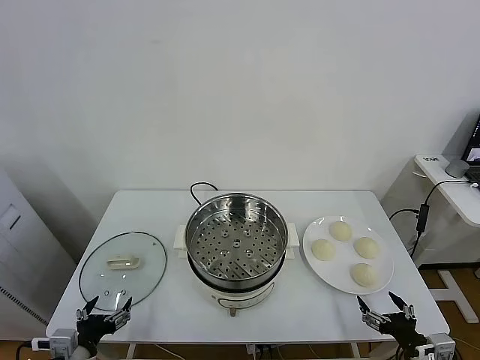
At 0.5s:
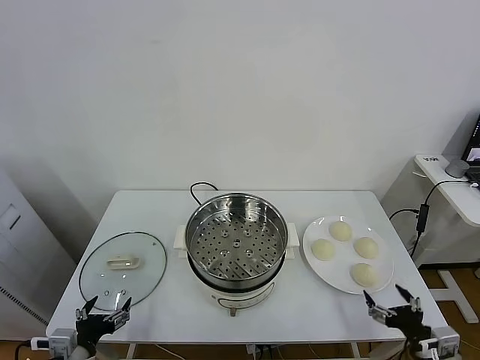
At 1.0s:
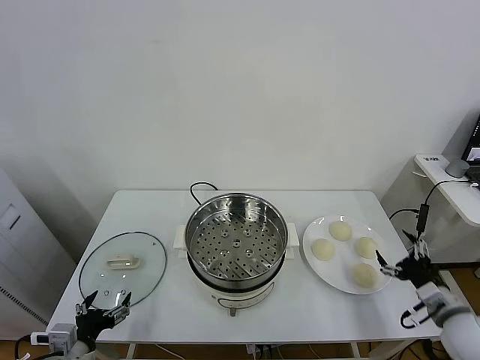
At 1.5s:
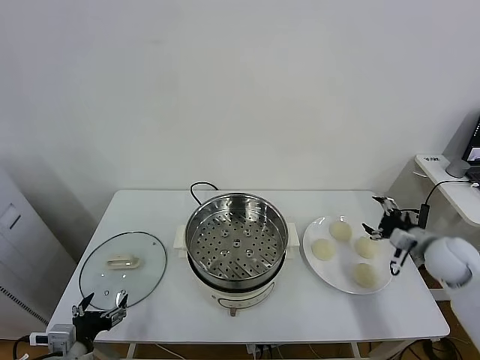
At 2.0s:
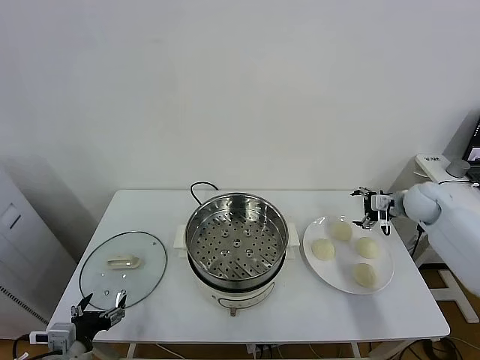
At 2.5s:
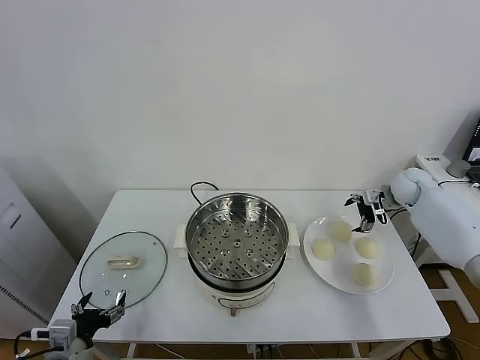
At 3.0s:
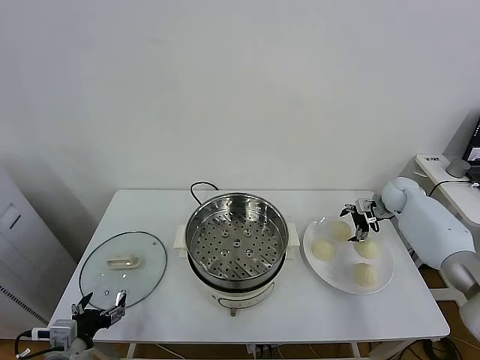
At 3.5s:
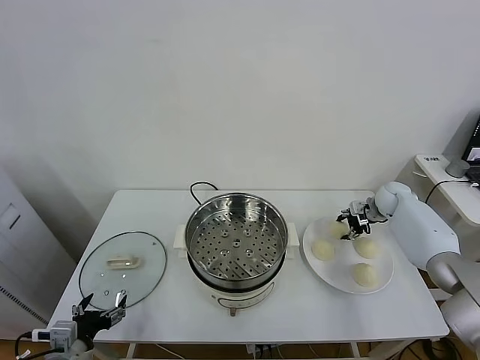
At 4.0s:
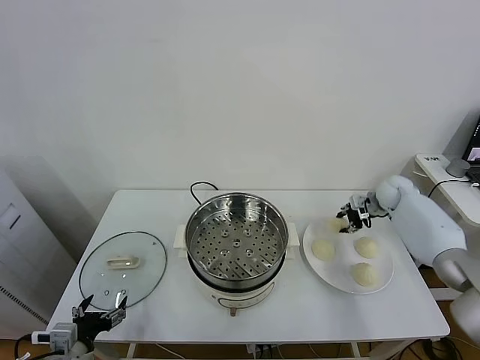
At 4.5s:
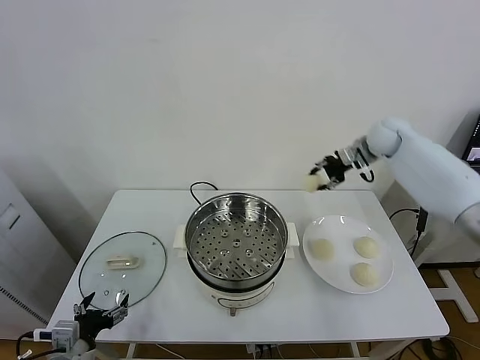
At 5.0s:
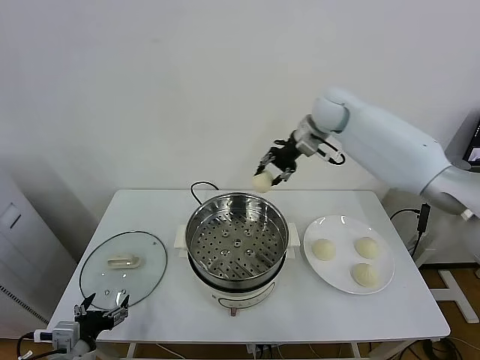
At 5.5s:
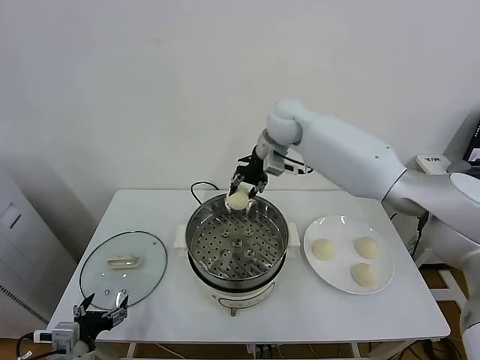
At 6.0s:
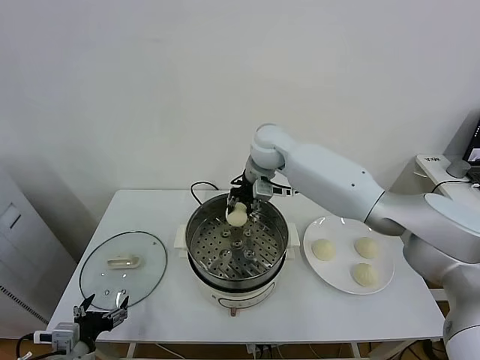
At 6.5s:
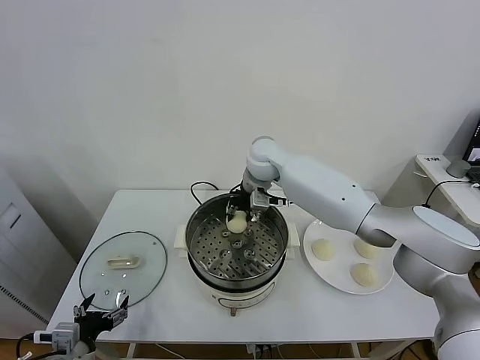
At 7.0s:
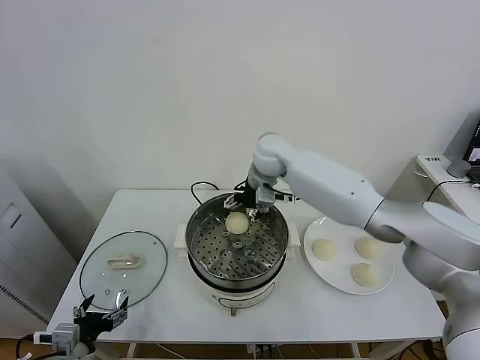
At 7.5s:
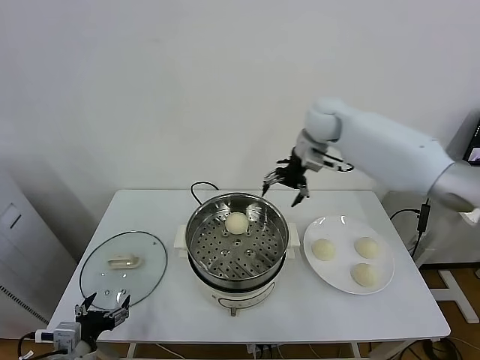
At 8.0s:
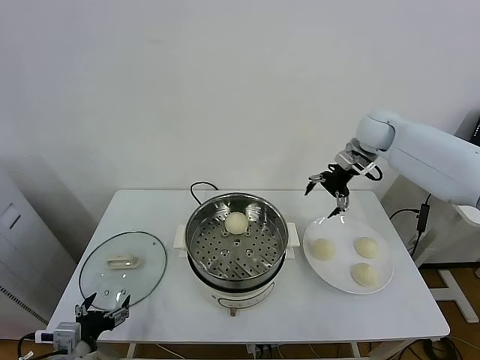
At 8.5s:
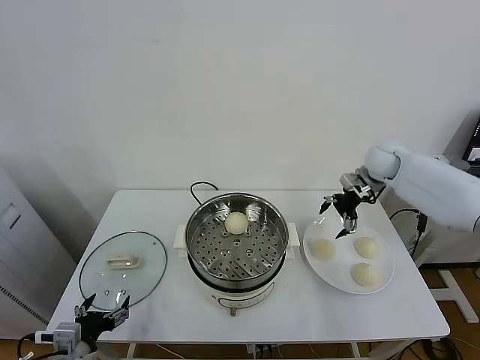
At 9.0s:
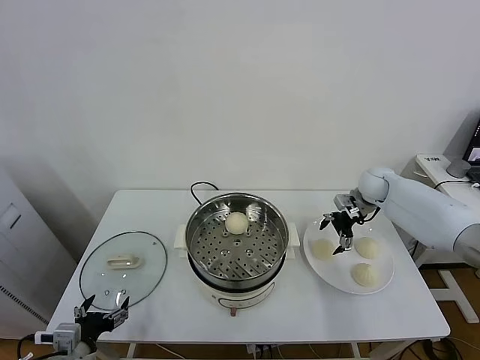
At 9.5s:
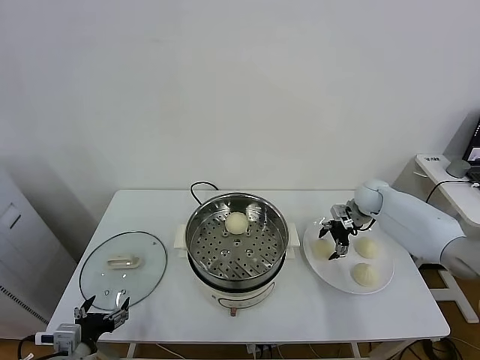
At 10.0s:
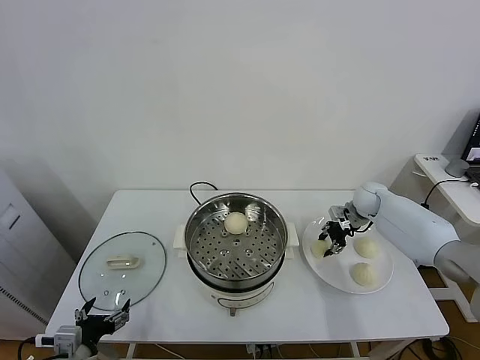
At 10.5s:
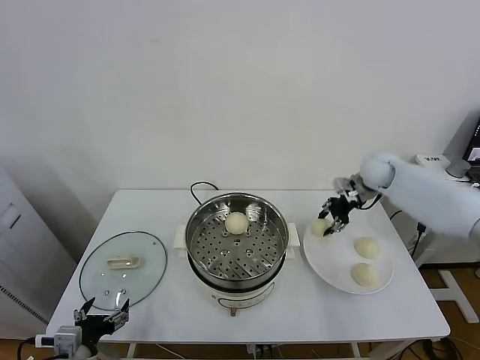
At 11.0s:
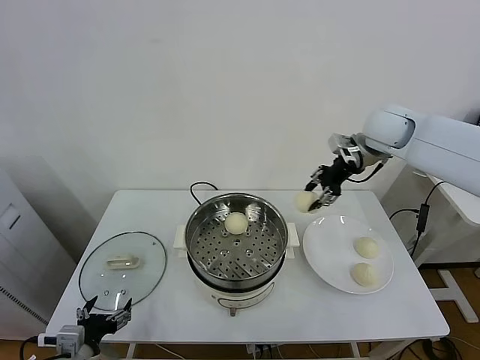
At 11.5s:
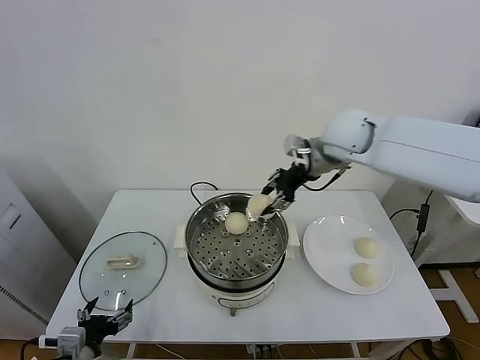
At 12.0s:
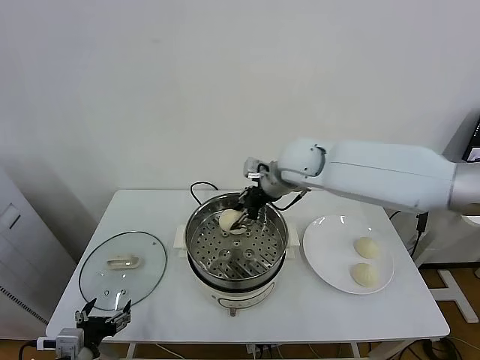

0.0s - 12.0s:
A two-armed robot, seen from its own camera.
Task of the whole recording: take steamed baozi put them in steamer.
Step, 0.0s - 3.5s: Grasp the baozi in the plate with right gripper.
Step, 4.0s - 7.0s: Place the baozi on the steamer with right gripper.
Step, 7.5s - 9.5s: Grasp the baozi in the plate with right gripper.
2.0s - 4.0s: The right gripper heads forward, covering about 5 cm, reaches approximately 10 cm downward, then returns, and closes its fingers.
4.0s - 6.0s: The right gripper shifts about 35 cm to the left.
6.0s - 8.0s: The right gripper heads to the right, covering roughly 30 cm, and opens up.
8.0s - 10.0s: The right gripper moves downward, about 20 cm, and closes.
10.0s - 12.0s: The right gripper moves to the left and upward, some 30 cm.

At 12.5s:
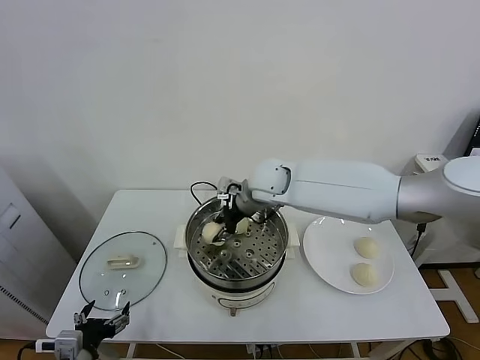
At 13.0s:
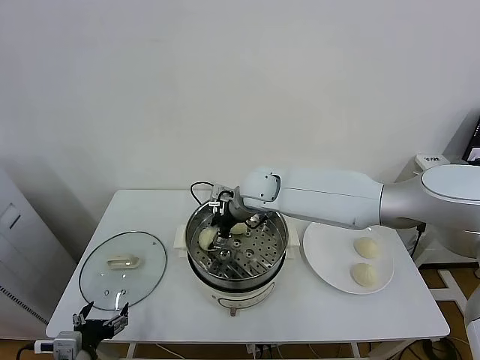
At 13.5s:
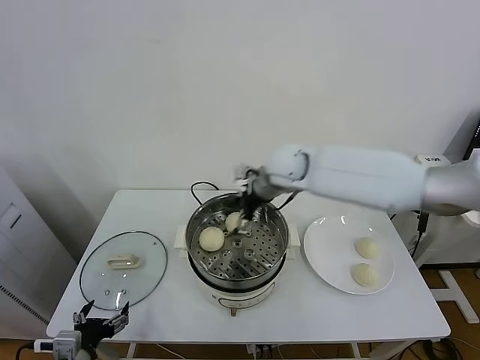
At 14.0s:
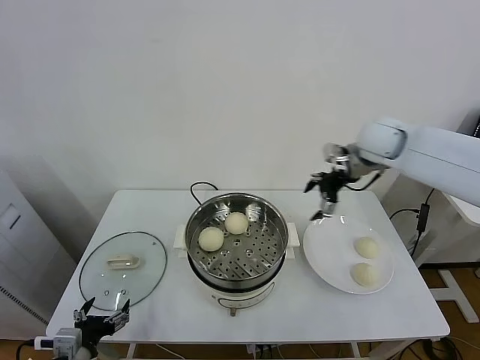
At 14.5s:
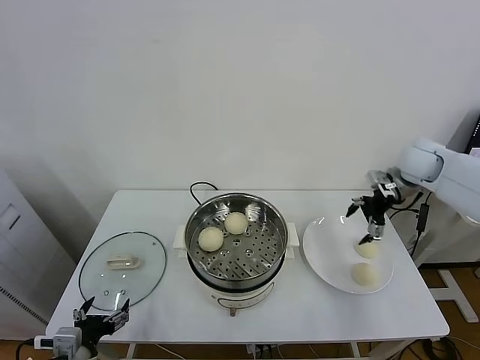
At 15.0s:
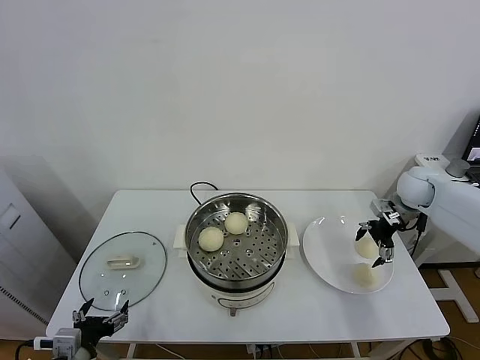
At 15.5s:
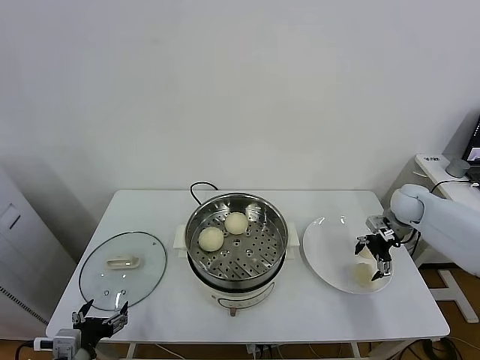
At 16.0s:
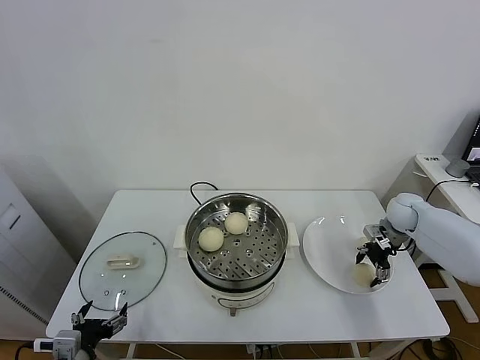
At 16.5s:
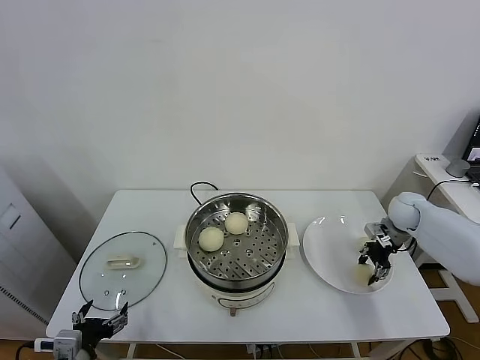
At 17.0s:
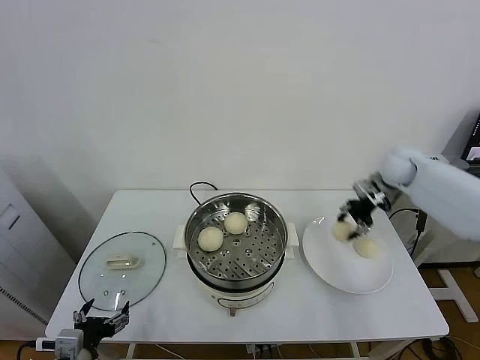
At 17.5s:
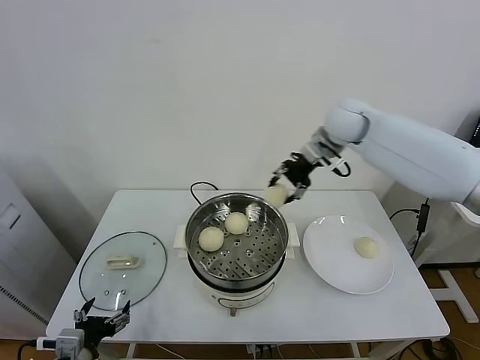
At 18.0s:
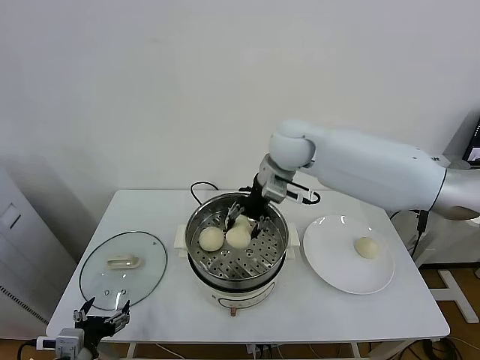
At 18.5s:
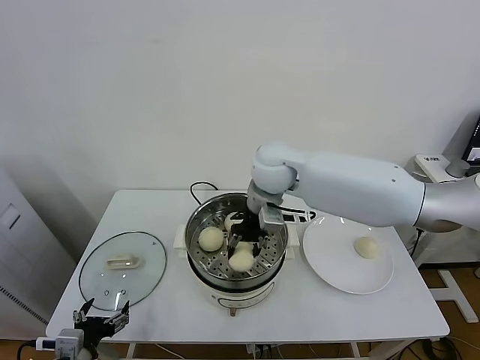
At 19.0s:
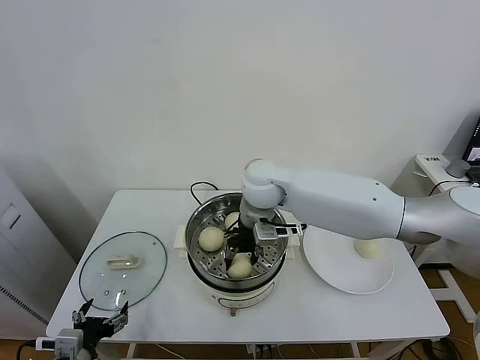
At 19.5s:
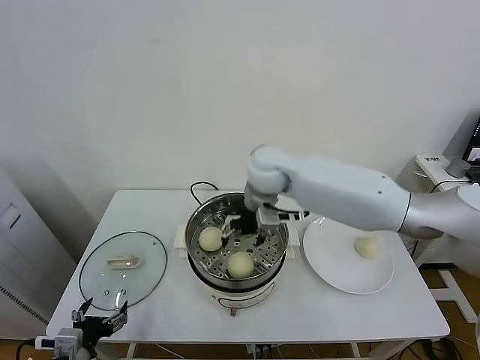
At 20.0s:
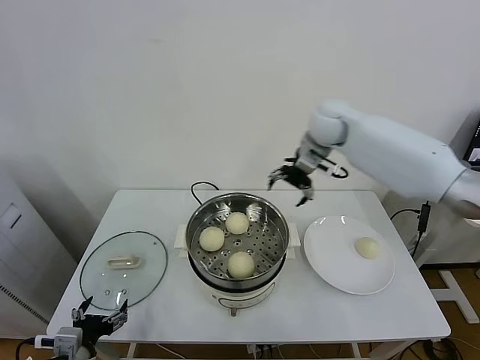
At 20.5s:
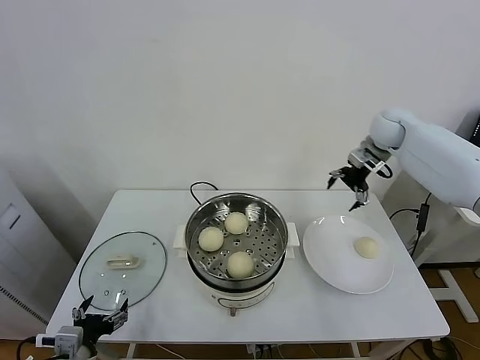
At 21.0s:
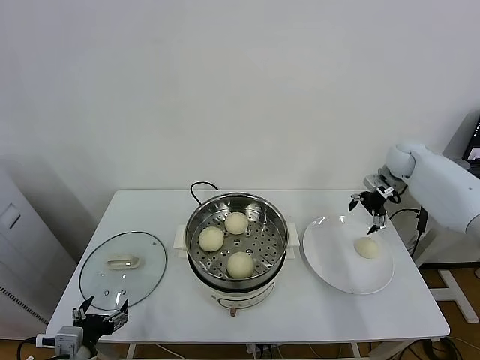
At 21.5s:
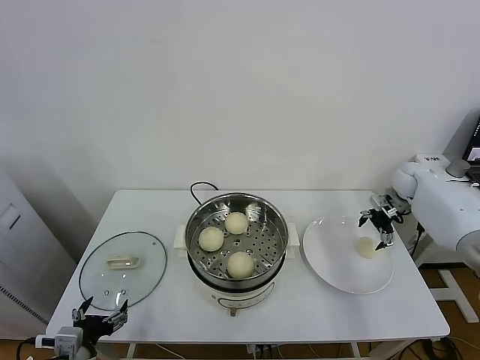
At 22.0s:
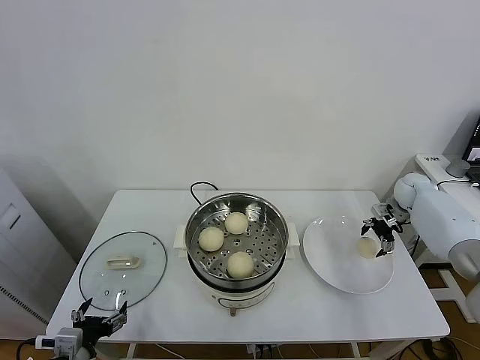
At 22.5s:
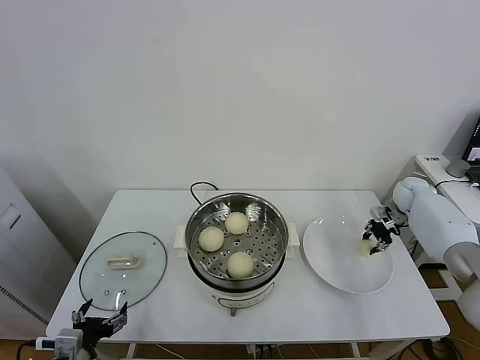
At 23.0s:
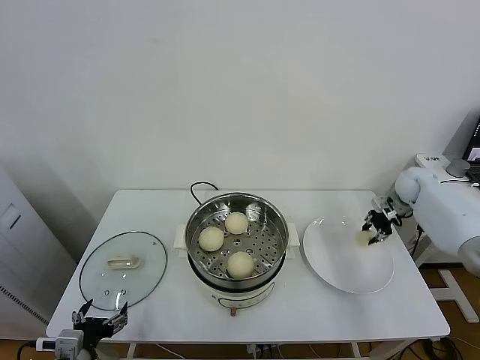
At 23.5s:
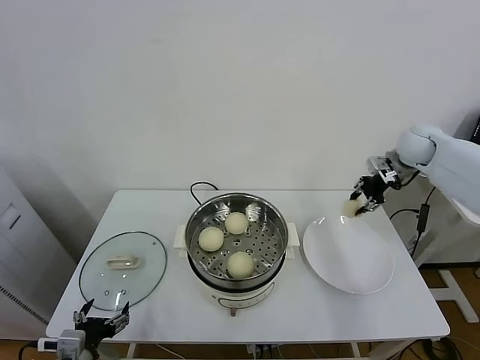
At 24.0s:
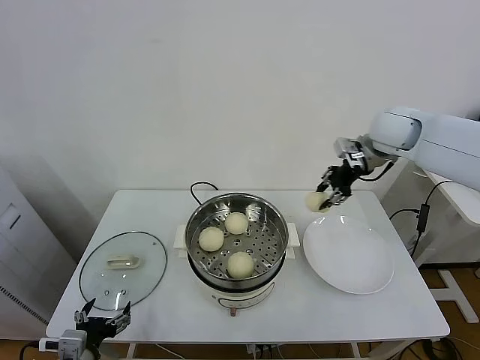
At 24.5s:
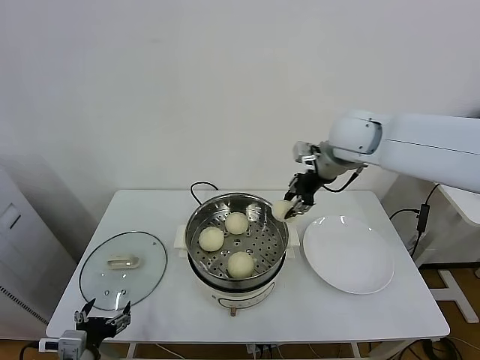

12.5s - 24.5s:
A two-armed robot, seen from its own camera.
Task of the whole recording: take steamed baozi put them in steamer.
Step, 13.5s - 16.0s: Grasp the baozi in the plate with right gripper.
Step, 16.5s - 19.0s: Place the baozi on the steamer with right gripper.
Step, 19.5s - 22.5s: Grasp the baozi in the plate with right gripper.
12.5s - 14.5s: The right gripper shifts roughly 35 cm to the right, and opens up.
14.5s - 16.5s: The right gripper shifts roughly 15 cm downward, and closes up.
16.5s - 18.5s: The right gripper shifts about 40 cm to the left and upward.
18.5s - 20.5s: The right gripper goes about 35 cm to the right and forward, and opens.
20.5s - 22.5s: The right gripper heads downward and to the right, covering approximately 25 cm, and closes up.
22.5s - 24.5s: The right gripper goes about 35 cm to the left and upward.

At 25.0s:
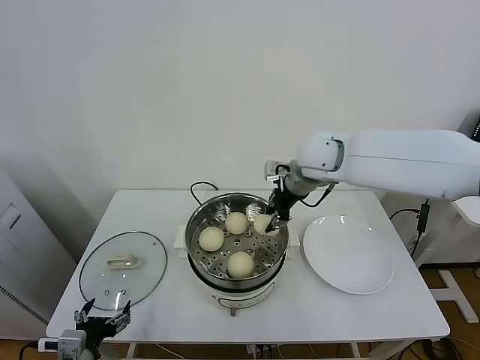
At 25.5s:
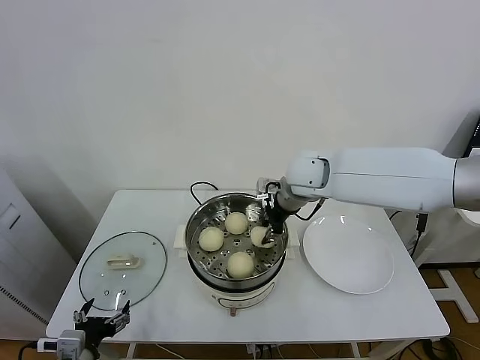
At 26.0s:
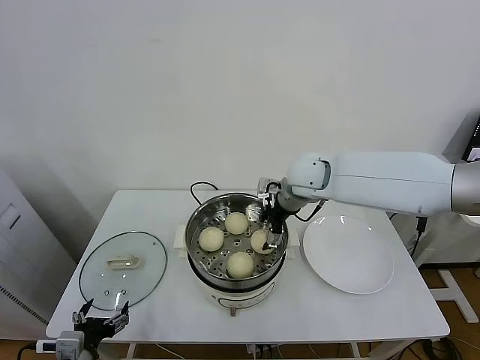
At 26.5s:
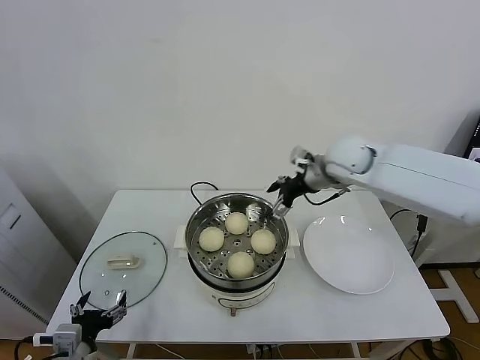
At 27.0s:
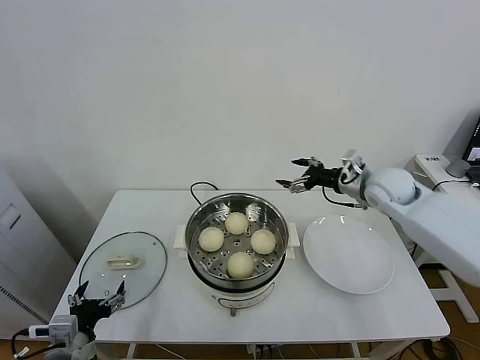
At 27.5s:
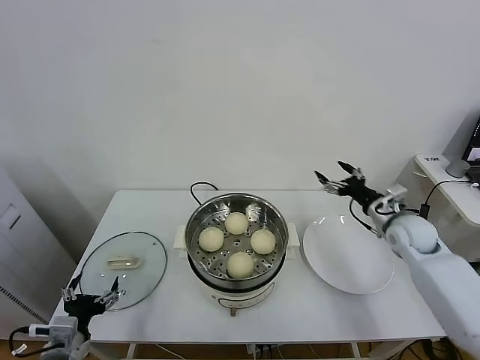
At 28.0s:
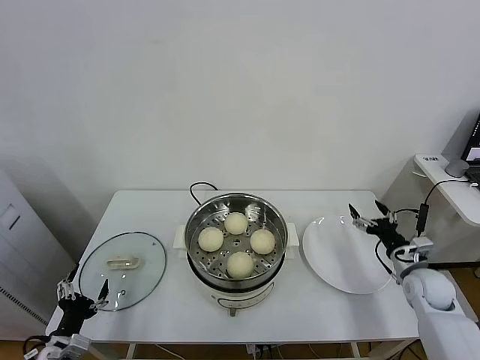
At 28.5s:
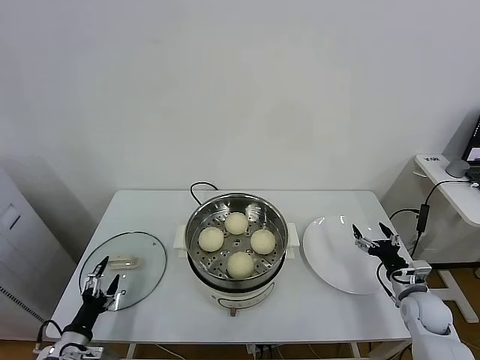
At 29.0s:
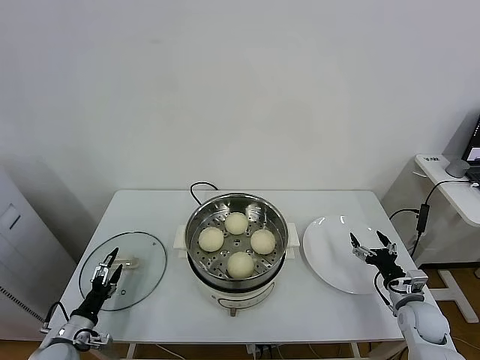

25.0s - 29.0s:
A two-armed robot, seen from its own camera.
Task of the whole recording: take steamed baozi put them in steamer.
25.0s - 27.0s: The right gripper moves to the right and downward, roughly 20 cm, and opens its fingers.
27.0s - 29.0s: The left gripper moves downward, to the left and forward, some 15 cm, while the right gripper goes roughly 35 cm downward and backward.
